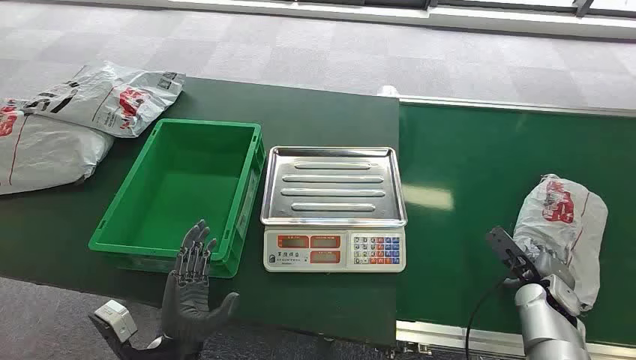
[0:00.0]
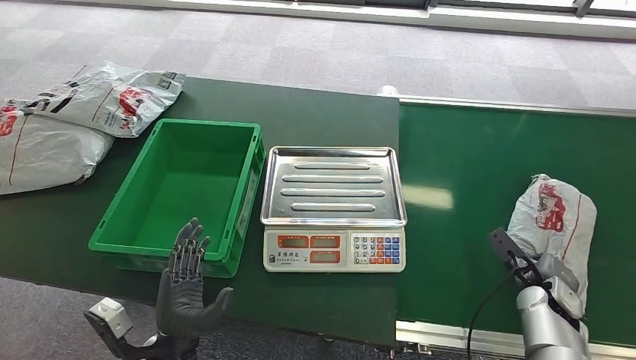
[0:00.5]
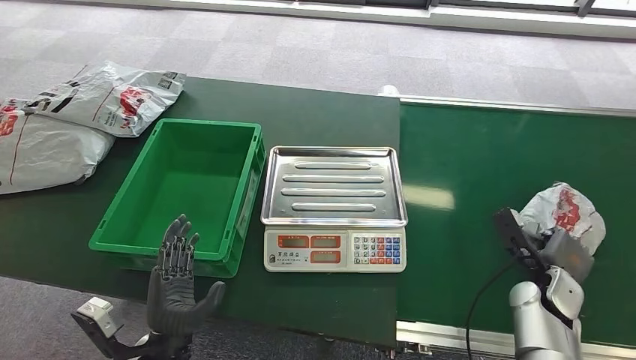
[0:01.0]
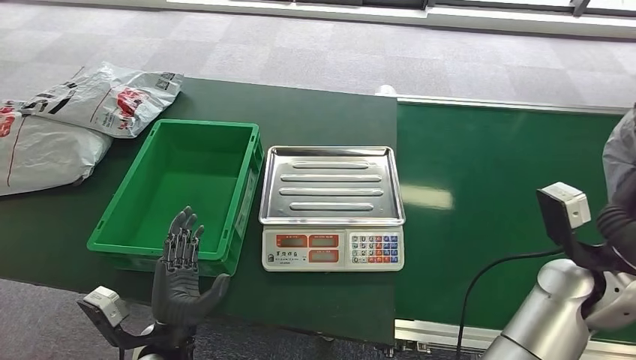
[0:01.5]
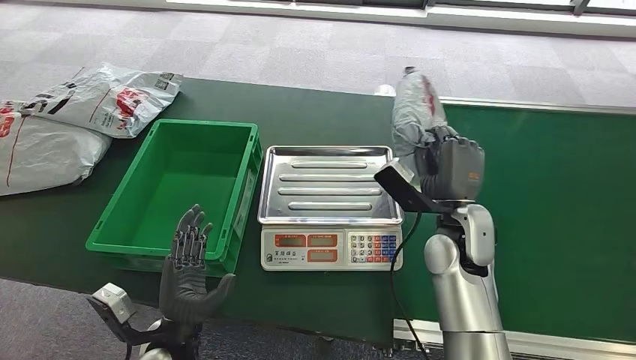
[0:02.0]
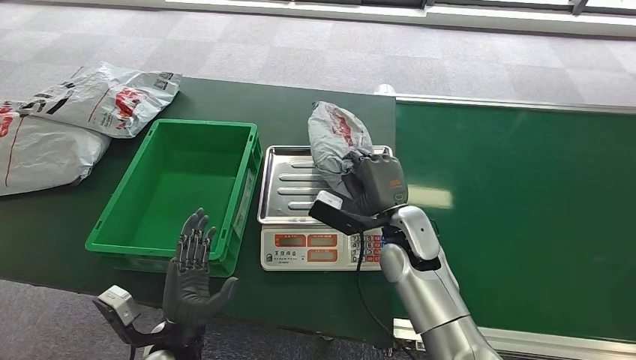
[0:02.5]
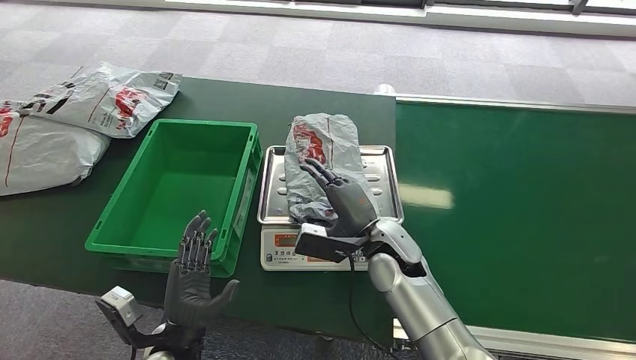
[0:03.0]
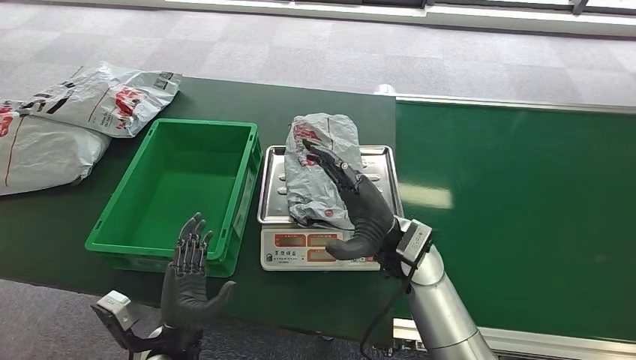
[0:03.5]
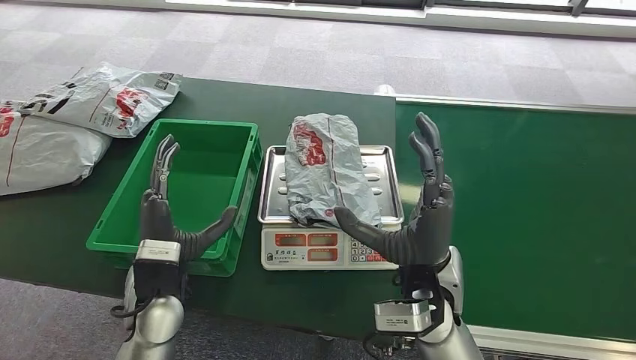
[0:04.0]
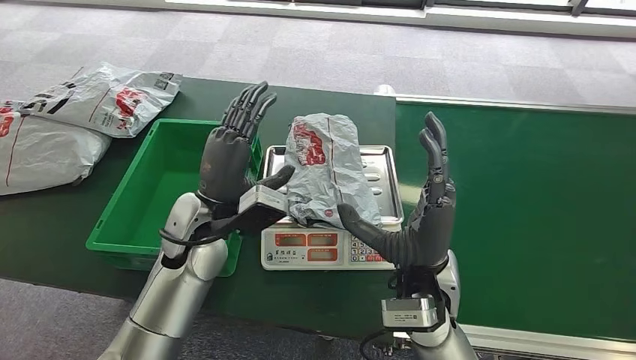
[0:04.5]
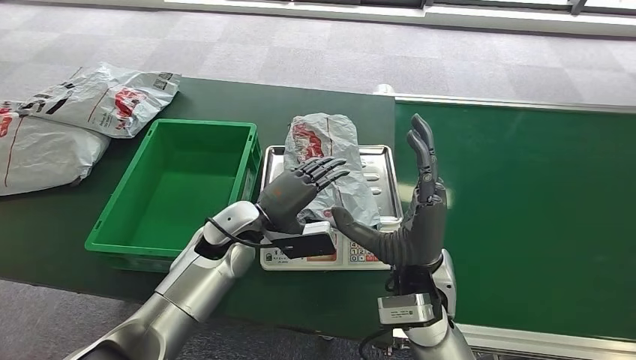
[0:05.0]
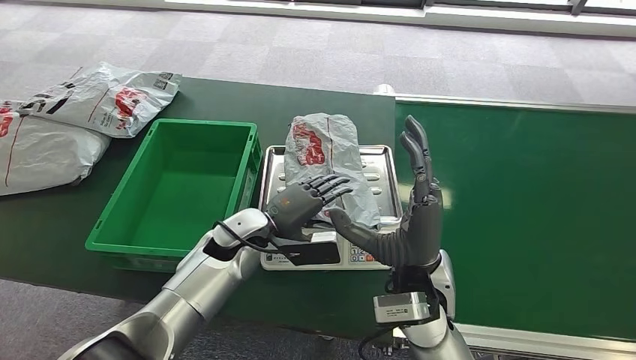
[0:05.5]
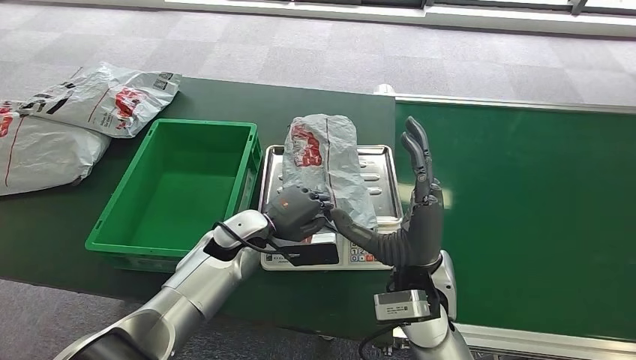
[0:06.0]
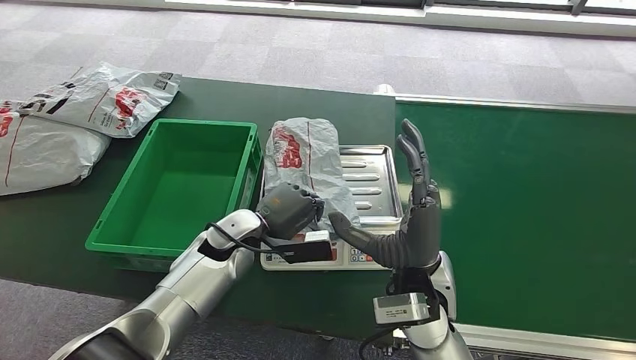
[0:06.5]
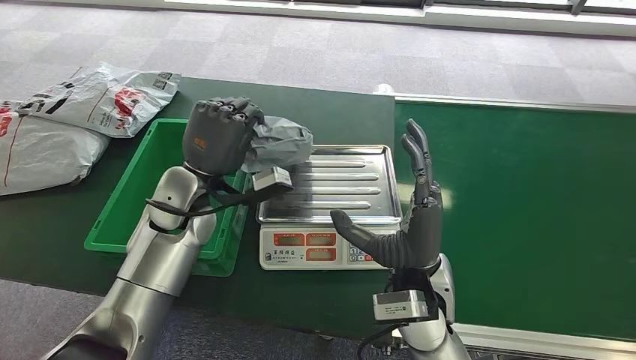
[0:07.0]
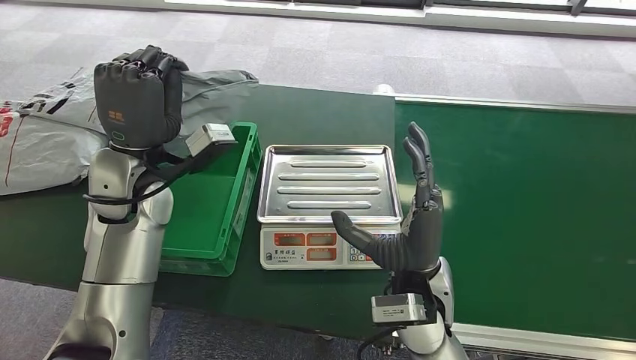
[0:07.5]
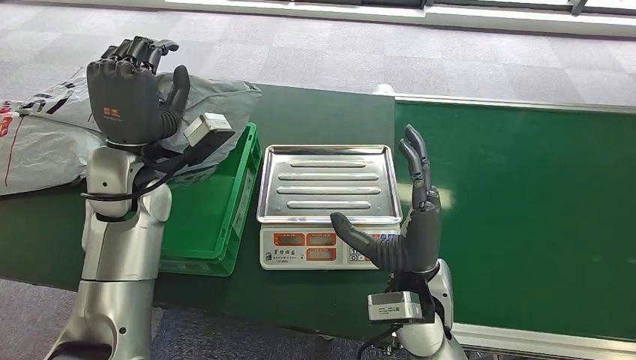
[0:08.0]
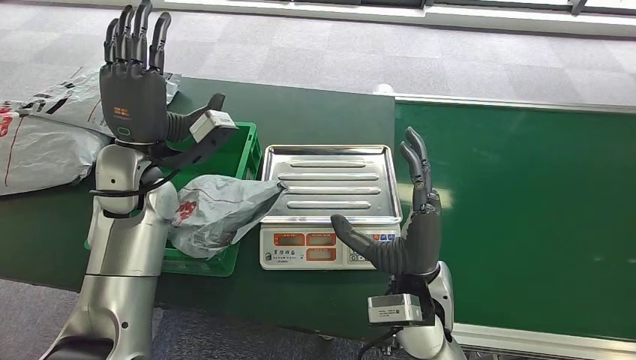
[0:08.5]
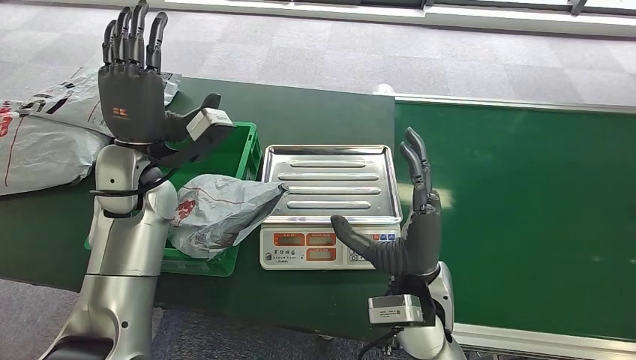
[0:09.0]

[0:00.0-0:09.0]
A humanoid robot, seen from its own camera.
Step, 0:00.0 to 0:01.0: Pick up the package from the conveyor belt.
Step, 0:01.5 to 0:02.0: Place the package onto the inbound machine.
Step, 0:05.5 to 0:07.0: Pick up the package from the inbound machine.
Step, 0:08.0 to 0:09.0: Place the package into the parcel locker.
0:04.5 to 0:07.0: The left hand moves roughly 10 cm downward and comes back.
0:07.0 to 0:09.0: The left hand shifts roughly 5 cm to the left.

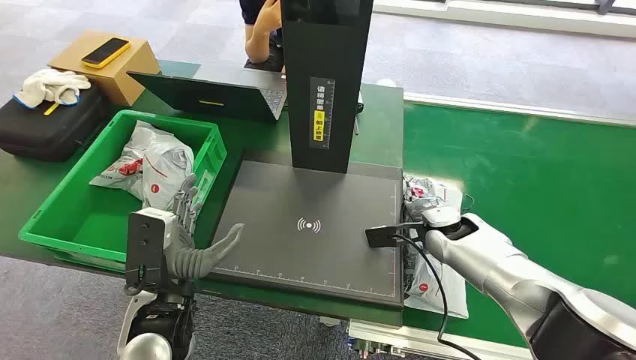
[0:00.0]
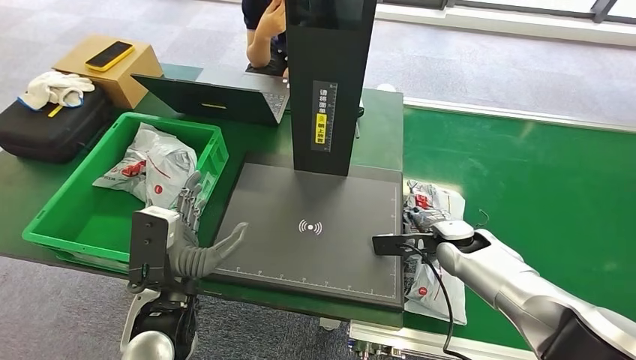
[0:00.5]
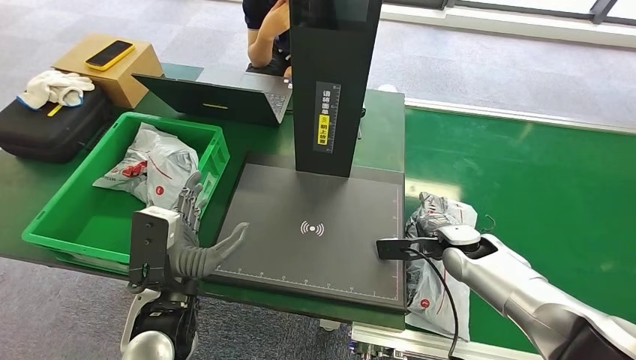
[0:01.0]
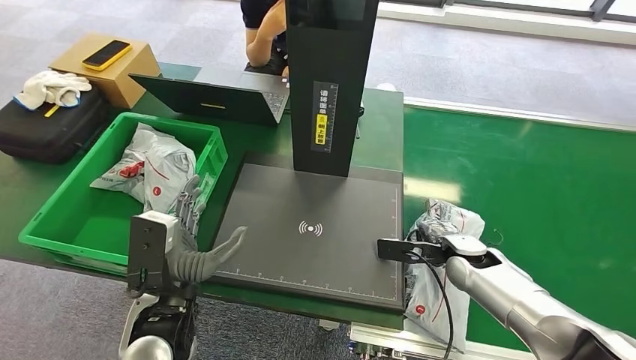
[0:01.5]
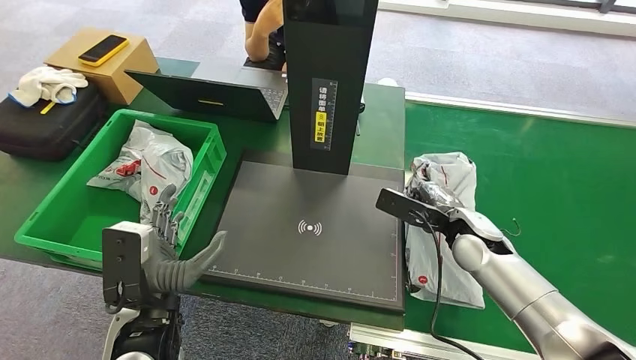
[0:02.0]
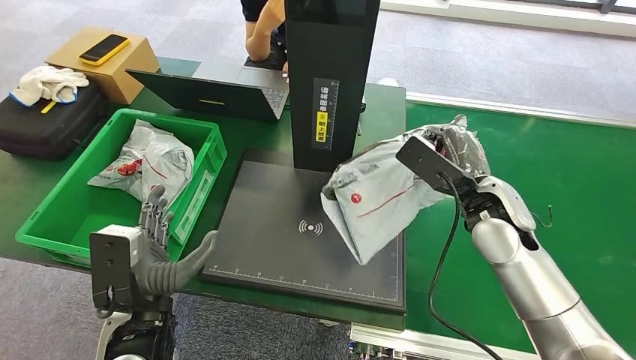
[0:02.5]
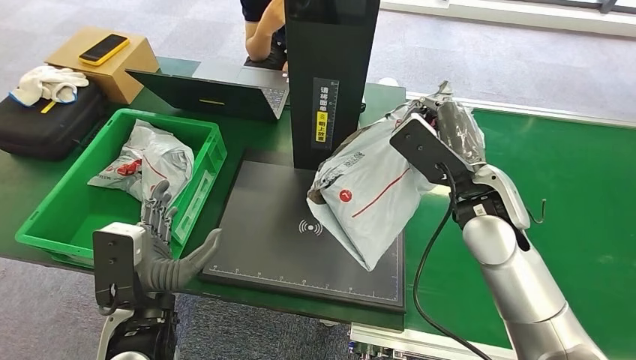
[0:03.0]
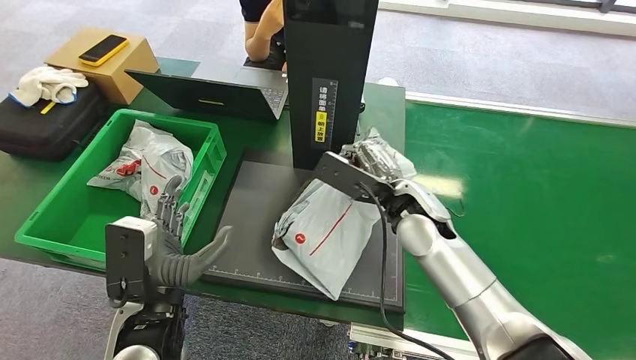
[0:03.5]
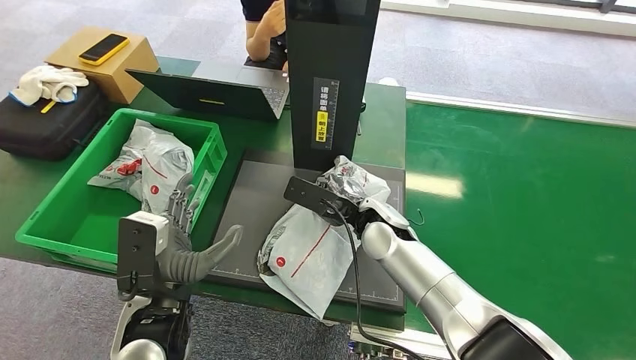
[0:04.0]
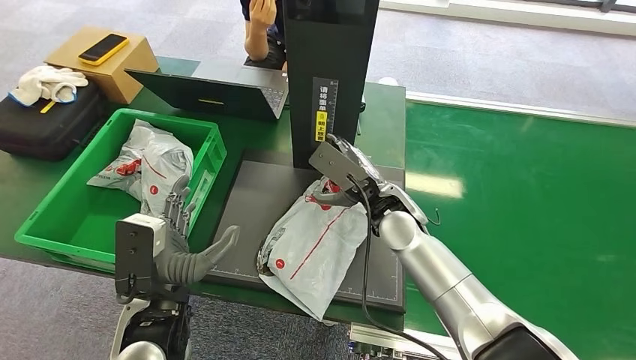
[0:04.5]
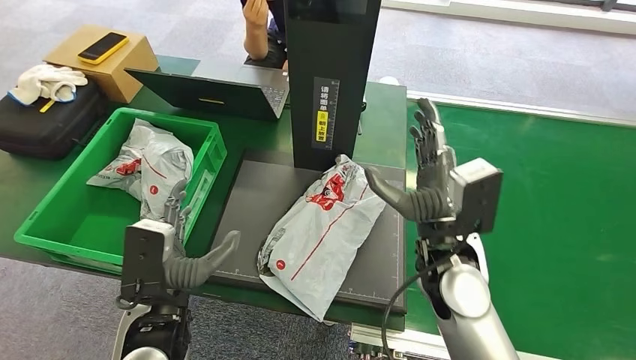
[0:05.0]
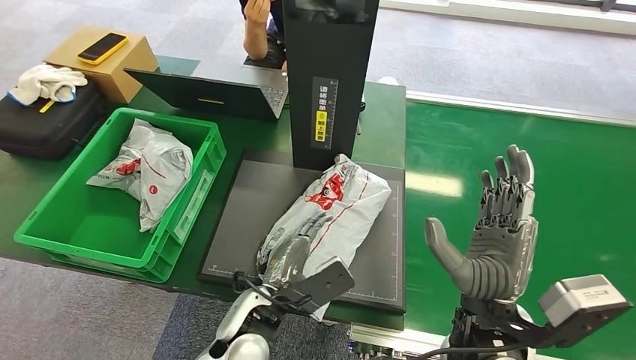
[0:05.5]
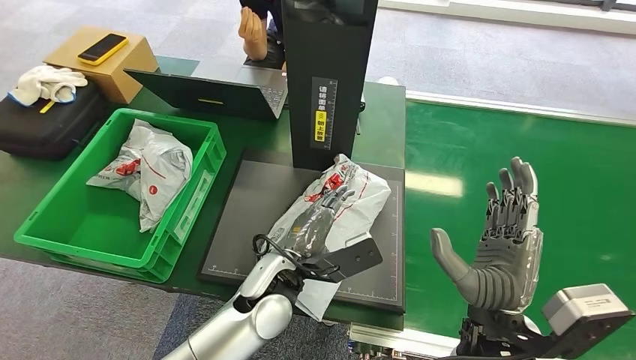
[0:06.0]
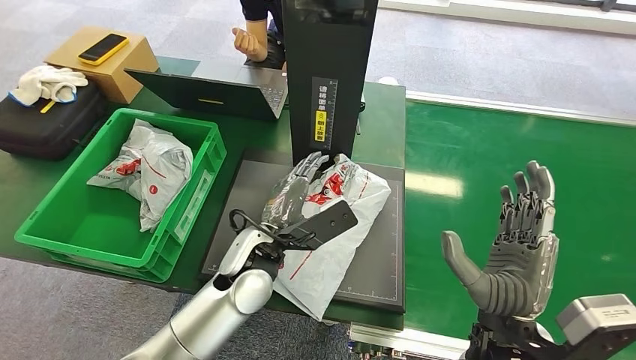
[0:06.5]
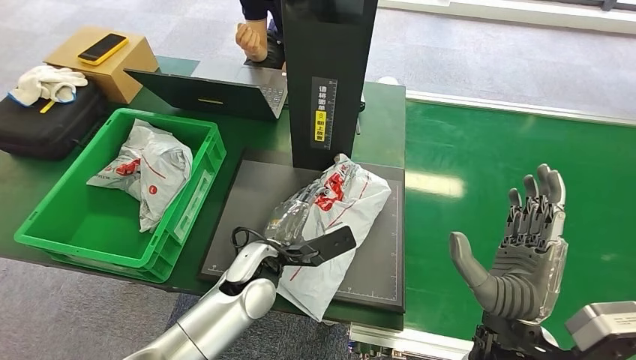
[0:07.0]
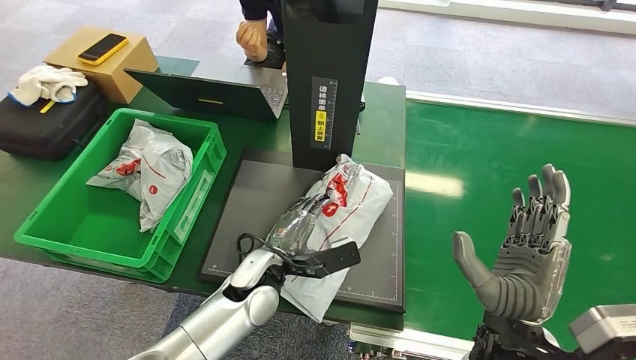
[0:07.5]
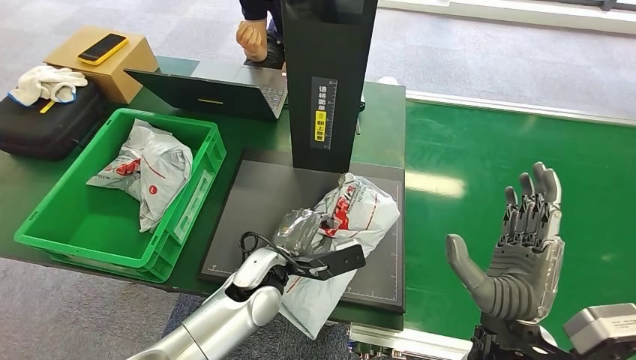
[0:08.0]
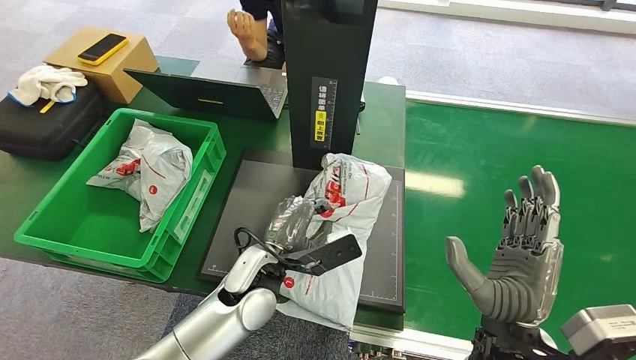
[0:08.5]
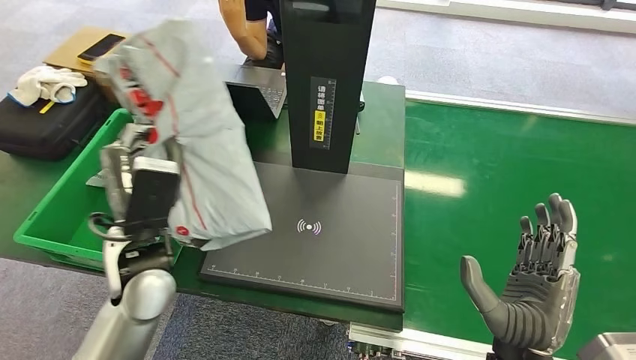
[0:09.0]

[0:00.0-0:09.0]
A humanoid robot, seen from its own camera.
Step, 0:00.0 to 0:02.5: Pick up the package from the conveyor belt.
Step, 0:03.0 to 0:05.0: Place the package onto the inbound machine.

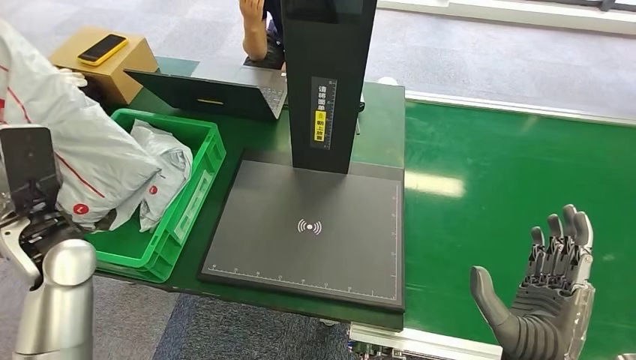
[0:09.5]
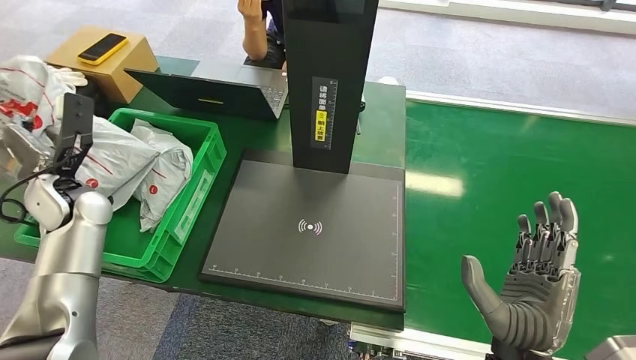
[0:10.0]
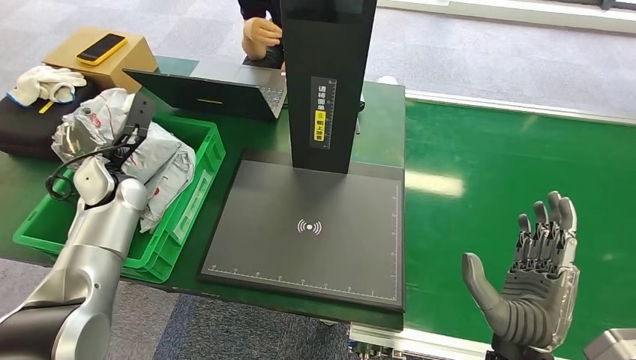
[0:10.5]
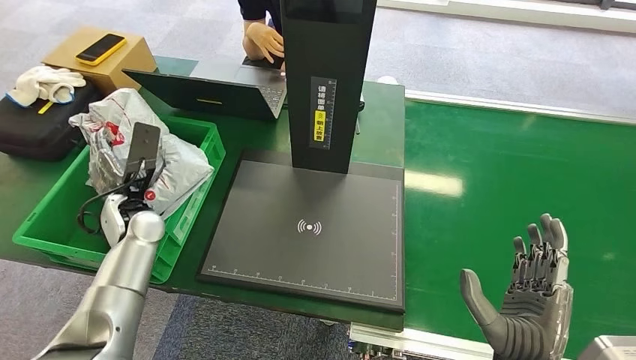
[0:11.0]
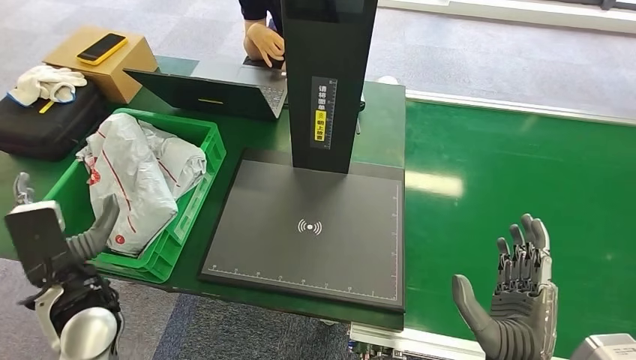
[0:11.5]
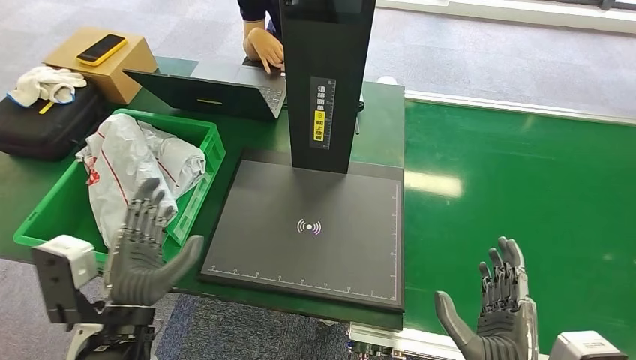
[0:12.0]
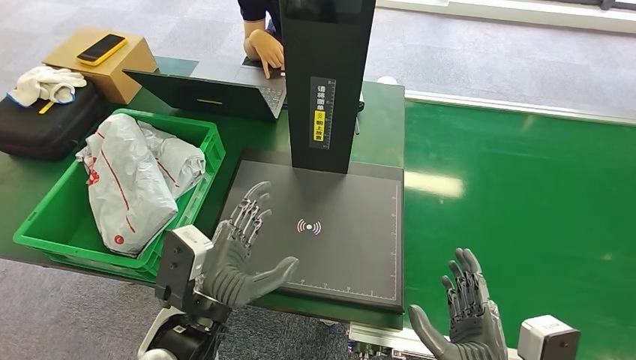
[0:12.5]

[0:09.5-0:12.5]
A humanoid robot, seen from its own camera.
Step, 0:10.0 to 0:12.5: Place the package into the parcel locker.
0:11.0 to 0:12.5: The right hand moves about 5 cm. The left hand goes some 25 cm to the right and backward.
